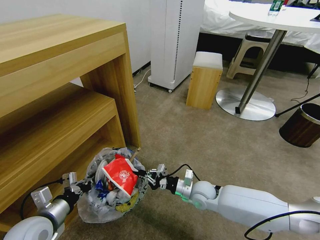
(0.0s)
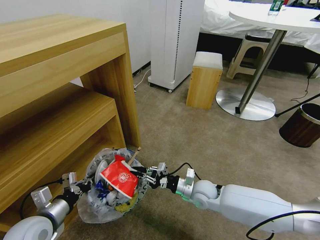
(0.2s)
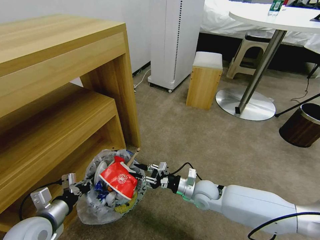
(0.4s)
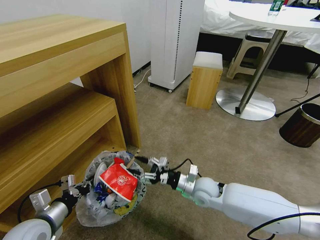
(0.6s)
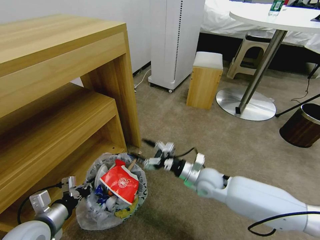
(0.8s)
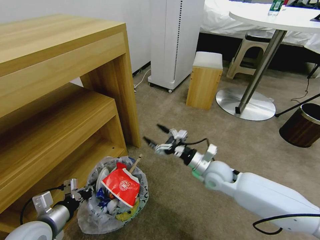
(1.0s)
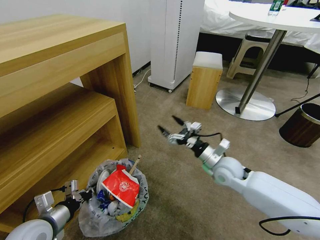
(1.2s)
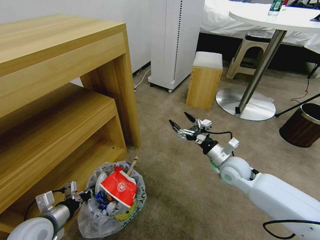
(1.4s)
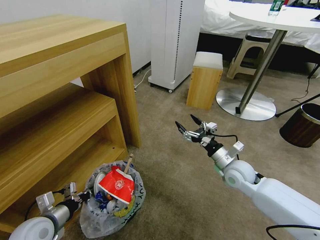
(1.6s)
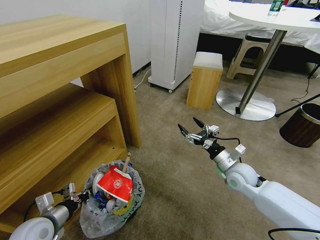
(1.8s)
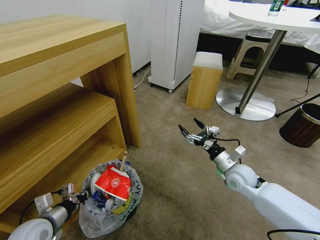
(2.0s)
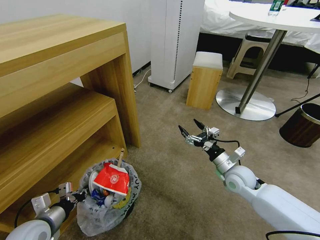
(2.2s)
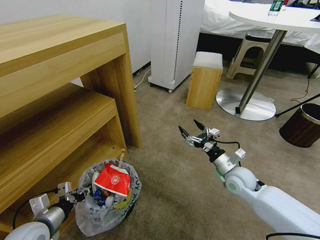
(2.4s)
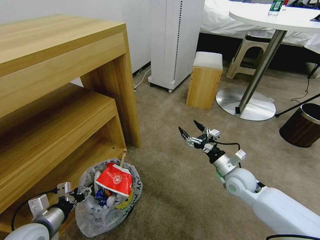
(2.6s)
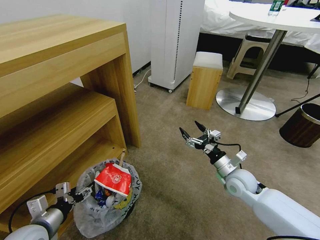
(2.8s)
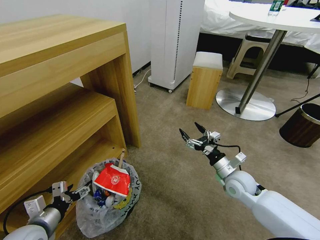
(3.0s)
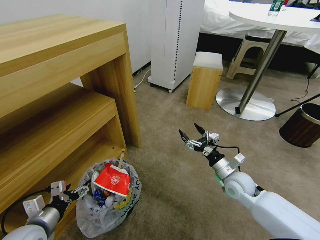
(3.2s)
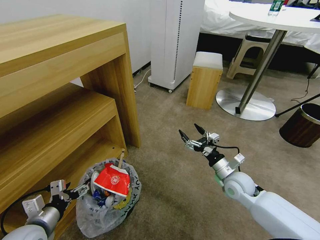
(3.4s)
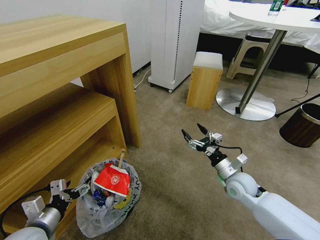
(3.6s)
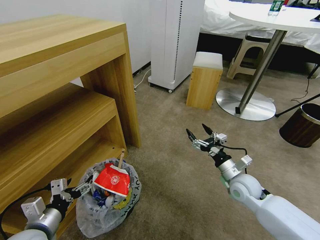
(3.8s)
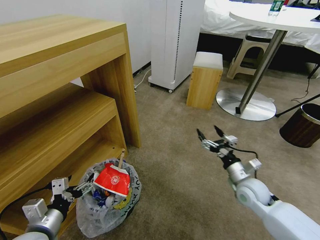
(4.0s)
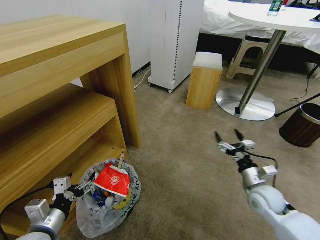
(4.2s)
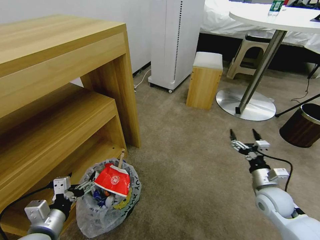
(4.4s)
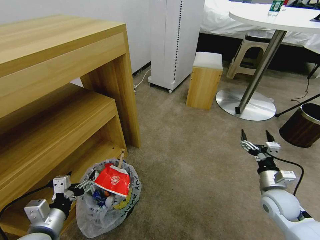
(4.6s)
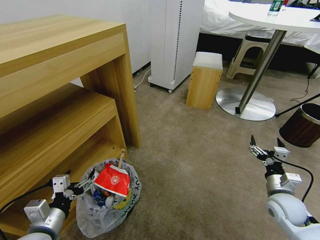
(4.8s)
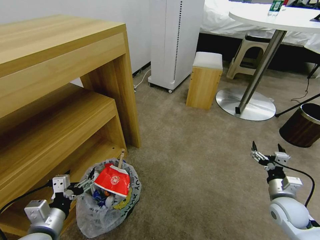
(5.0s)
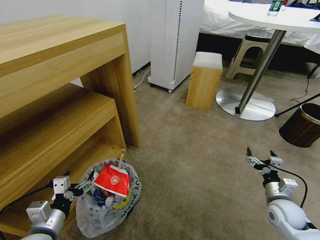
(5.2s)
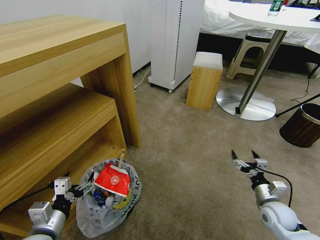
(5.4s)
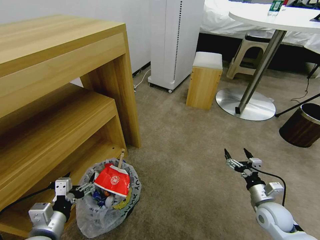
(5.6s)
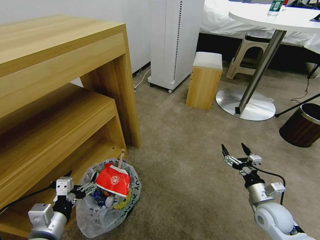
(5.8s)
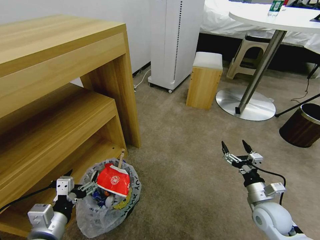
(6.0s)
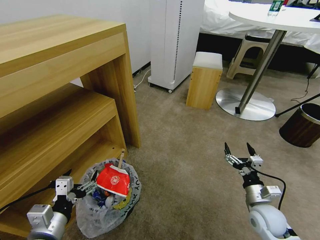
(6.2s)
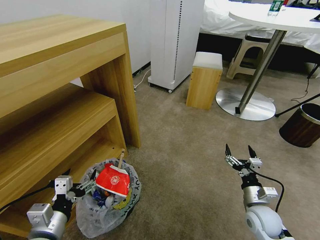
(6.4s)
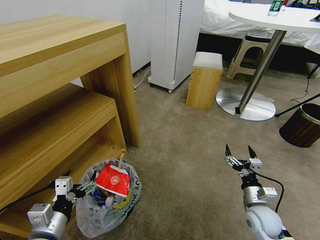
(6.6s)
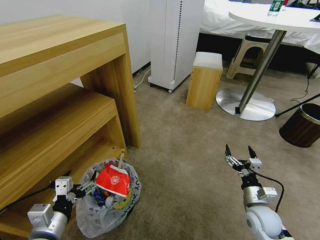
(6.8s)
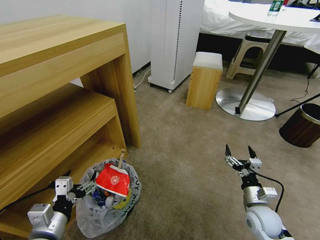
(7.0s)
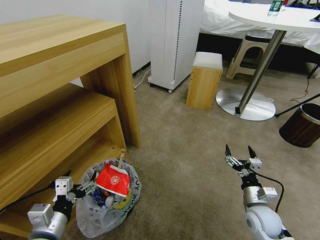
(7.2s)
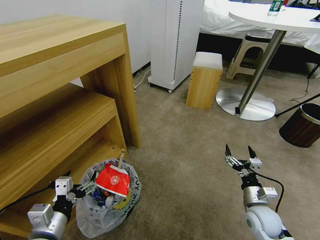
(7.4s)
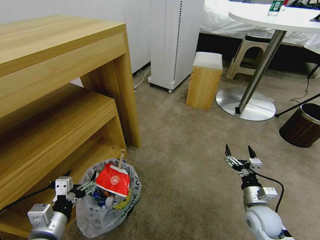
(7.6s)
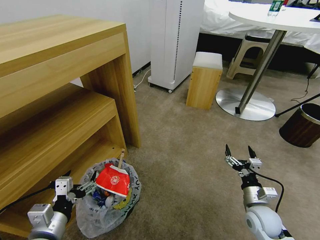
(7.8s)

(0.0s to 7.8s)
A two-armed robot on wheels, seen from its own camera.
Task of the whole recording: Pick up the trash bin and place the garbage on the floor into it.
0.0s - 1.6s: The right gripper moves to the right and upward, about 15 cm, and opens up.
1.6s - 3.2s: The left gripper opens its fingers.
3.2s - 4.6s: The right gripper shifts roughly 15 cm to the right and backward; the left gripper shifts by some 5 cm.
4.6s - 6.2s: The right gripper changes place by roughly 5 cm.
6.2s - 7.8s: The two grippers keep their place.
